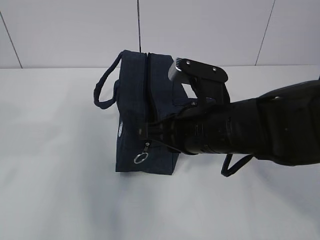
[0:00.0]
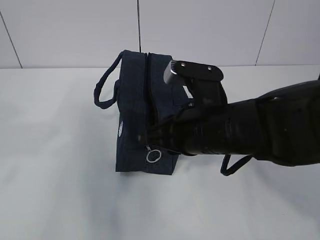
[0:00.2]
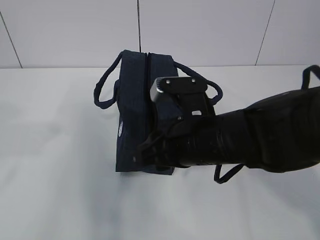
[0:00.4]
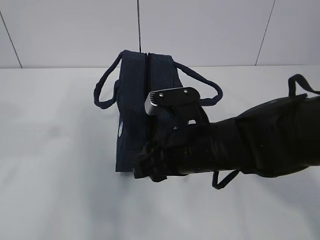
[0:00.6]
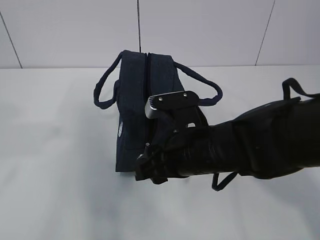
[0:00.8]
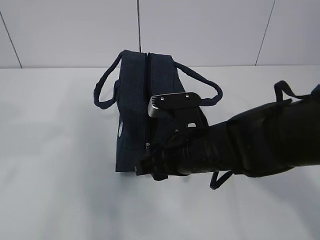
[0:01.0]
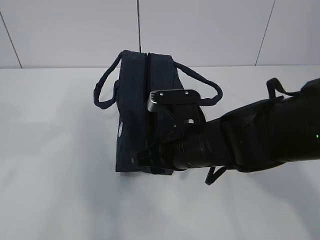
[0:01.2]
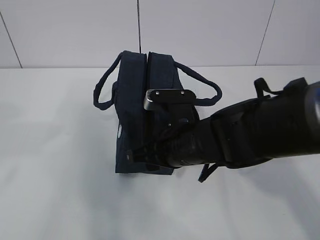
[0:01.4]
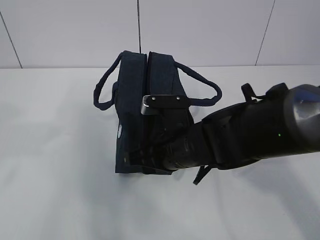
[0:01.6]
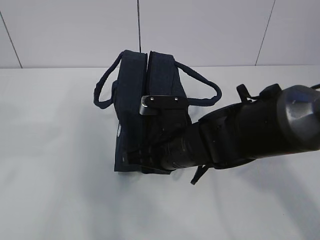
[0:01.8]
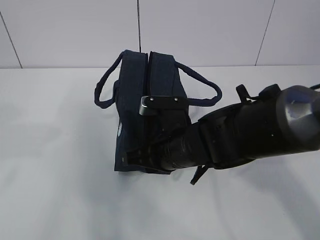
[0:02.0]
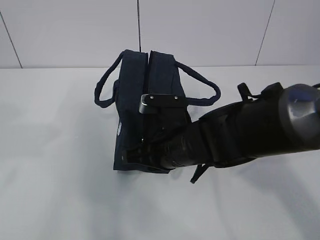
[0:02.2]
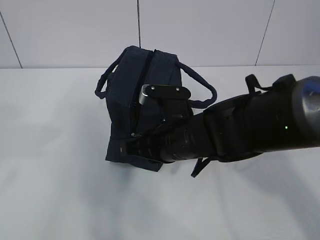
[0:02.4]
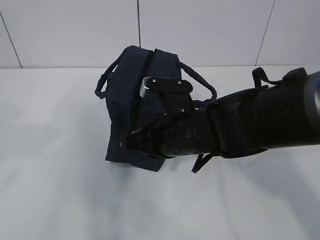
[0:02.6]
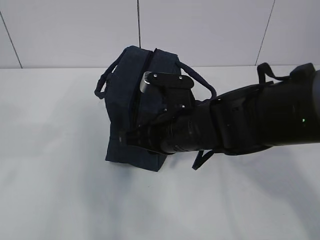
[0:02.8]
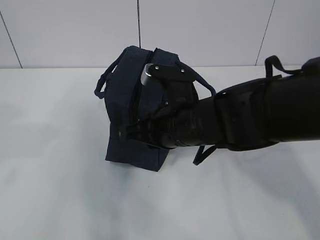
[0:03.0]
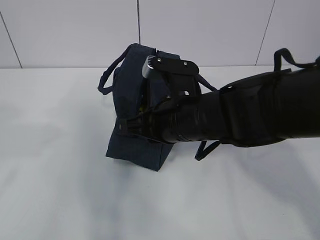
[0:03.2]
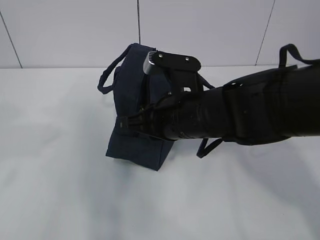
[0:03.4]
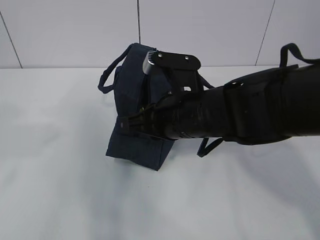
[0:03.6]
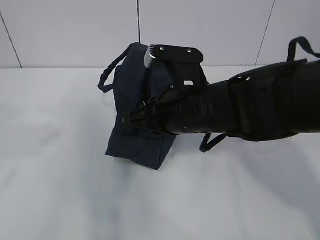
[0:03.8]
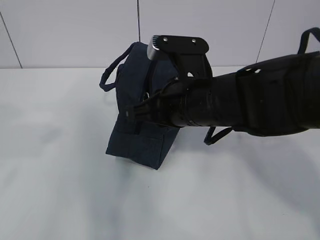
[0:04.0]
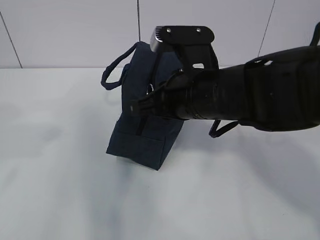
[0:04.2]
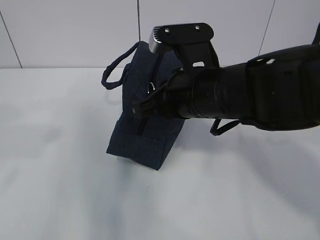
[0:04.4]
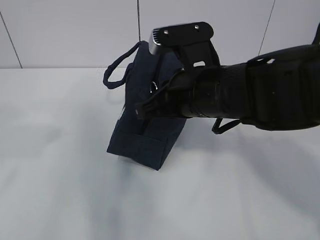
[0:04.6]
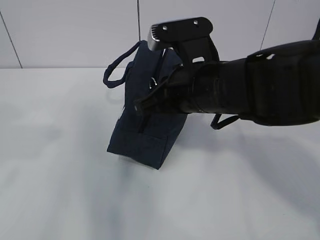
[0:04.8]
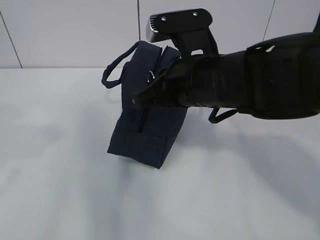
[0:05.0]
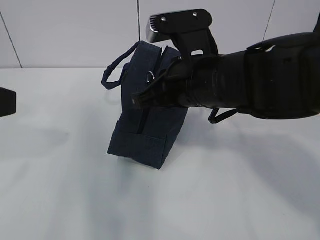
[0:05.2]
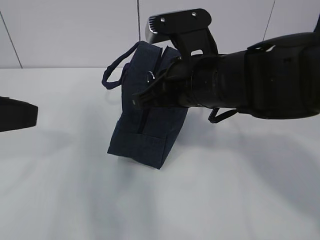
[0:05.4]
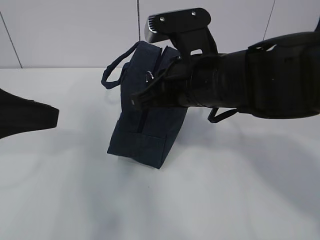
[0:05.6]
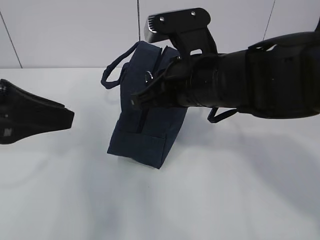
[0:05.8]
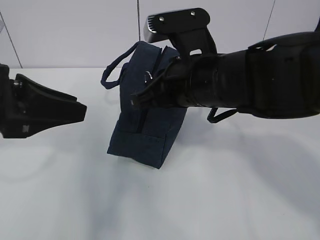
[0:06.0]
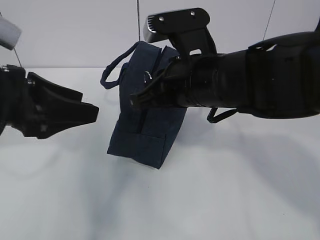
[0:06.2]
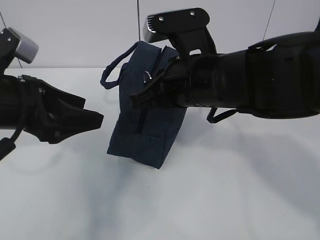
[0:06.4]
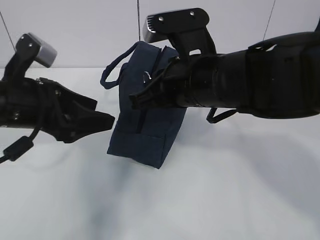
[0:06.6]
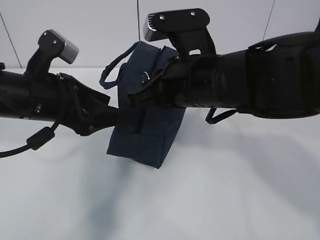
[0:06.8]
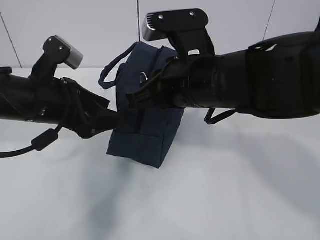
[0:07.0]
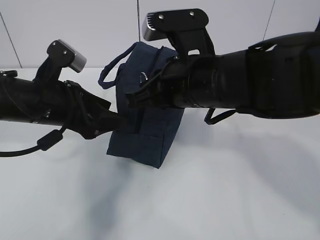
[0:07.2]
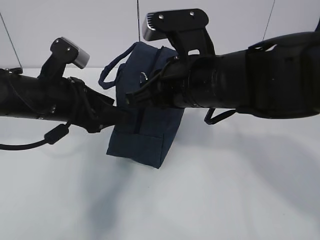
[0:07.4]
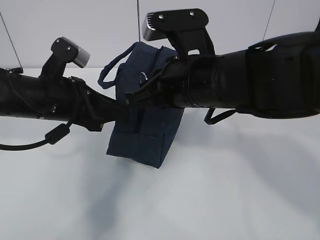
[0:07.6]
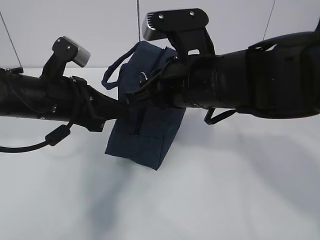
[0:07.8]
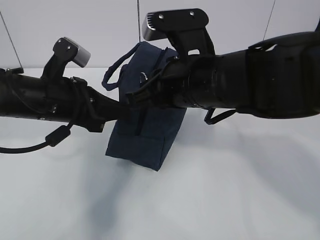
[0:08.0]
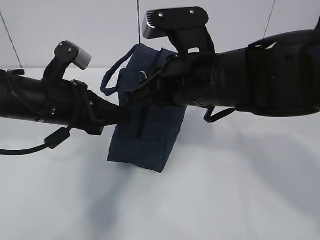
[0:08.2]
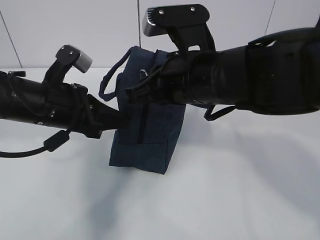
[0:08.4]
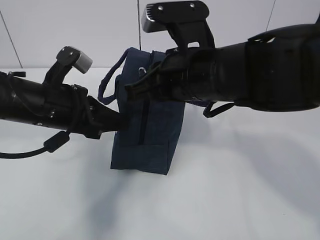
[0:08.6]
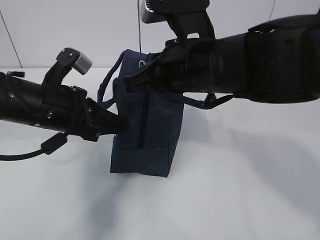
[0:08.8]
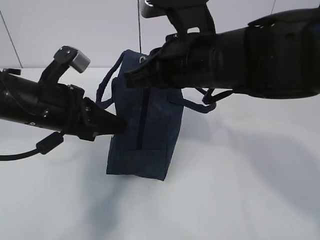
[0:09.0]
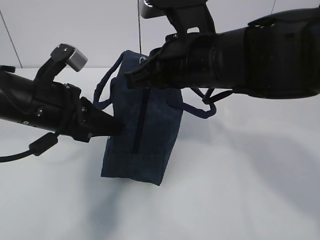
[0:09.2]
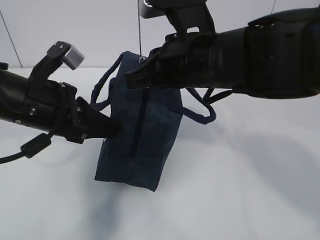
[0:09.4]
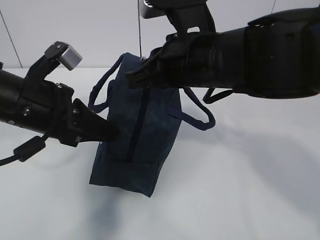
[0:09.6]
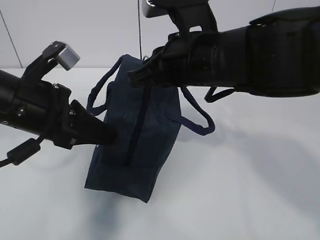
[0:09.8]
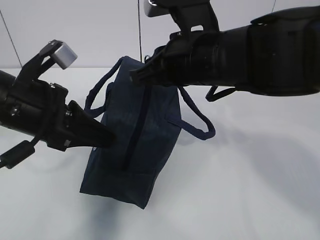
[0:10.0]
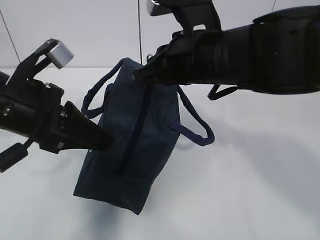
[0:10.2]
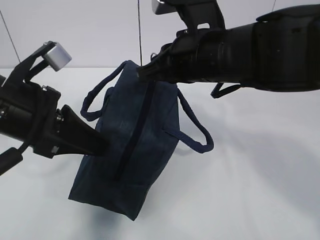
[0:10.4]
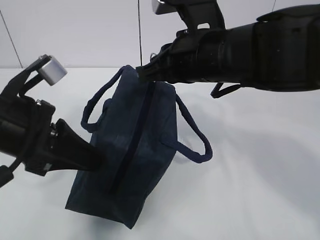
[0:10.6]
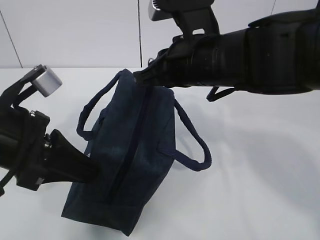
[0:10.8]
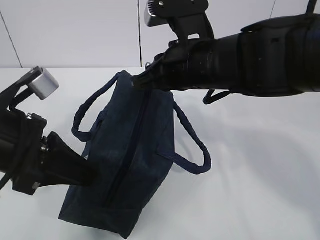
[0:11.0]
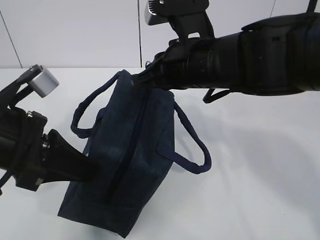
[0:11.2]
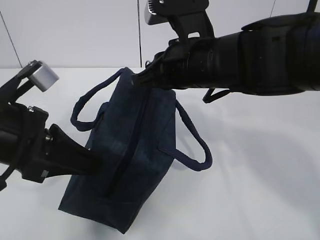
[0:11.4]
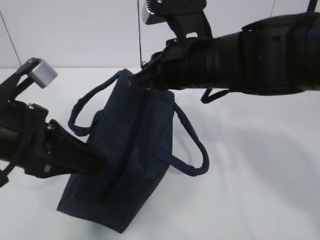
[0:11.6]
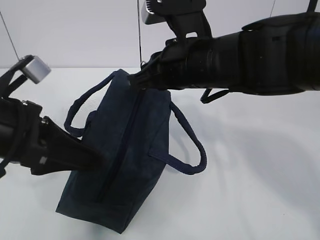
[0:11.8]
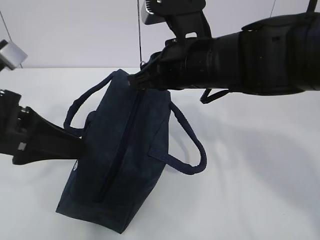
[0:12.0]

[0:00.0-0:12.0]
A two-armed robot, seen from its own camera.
Step, 0:01.4 to 0:06.0: Pull the zipper with your right hand.
Step, 0:06.2 to 0:08.0: Grab the lunch bag with your left hand.
0:00.0 to 0:01.6: The right gripper heads downward, covering some 5 cm, and opens up.
0:01.6 to 0:03.0: The right gripper closes.
0:03.0 to 0:04.4: The right gripper goes approximately 5 cm upward.
0:04.4 to 0:06.0: The left gripper goes roughly 10 cm forward and downward.
0:06.0 to 0:07.6: The left gripper goes some 10 cm forward and downward.
0:07.6 to 0:09.0: The left gripper closes up.
0:09.0 to 0:10.4: The left gripper ends up roughly 5 cm from where it was.
0:10.4 to 0:12.0: The left gripper opens up.

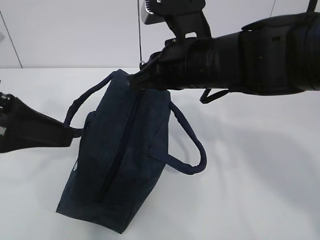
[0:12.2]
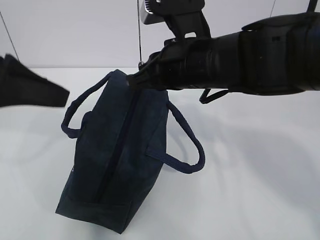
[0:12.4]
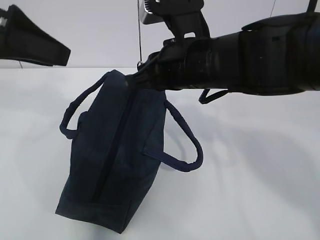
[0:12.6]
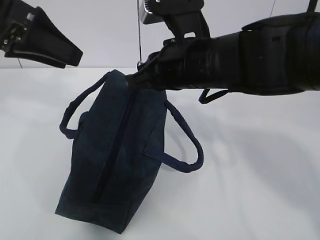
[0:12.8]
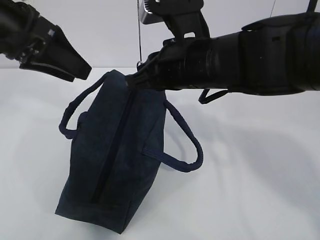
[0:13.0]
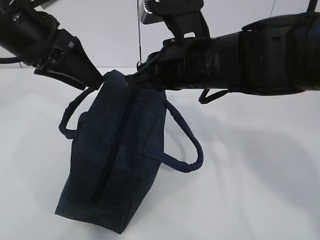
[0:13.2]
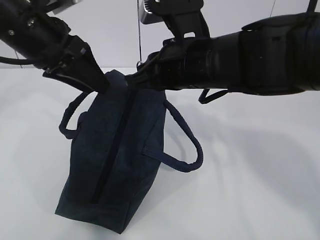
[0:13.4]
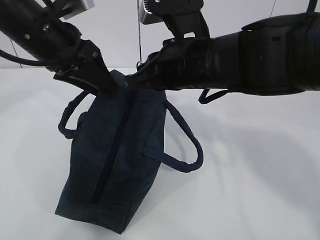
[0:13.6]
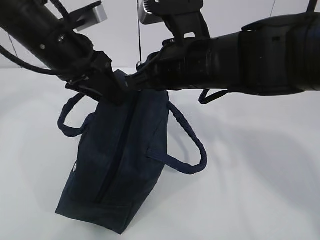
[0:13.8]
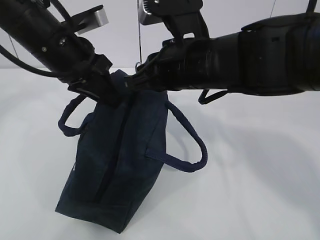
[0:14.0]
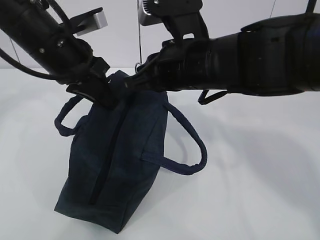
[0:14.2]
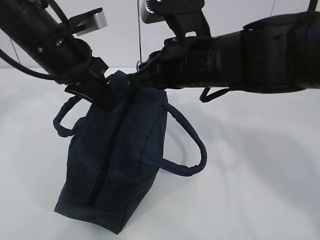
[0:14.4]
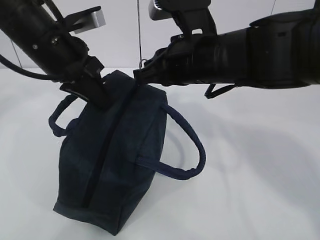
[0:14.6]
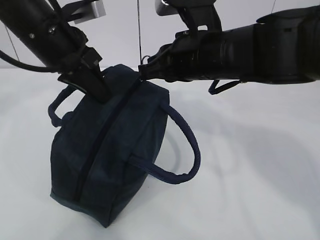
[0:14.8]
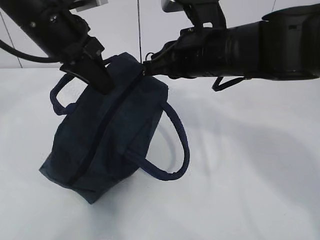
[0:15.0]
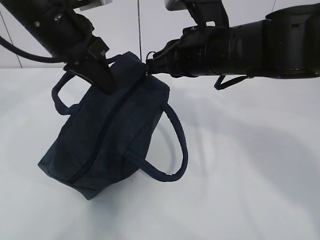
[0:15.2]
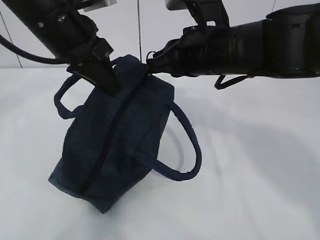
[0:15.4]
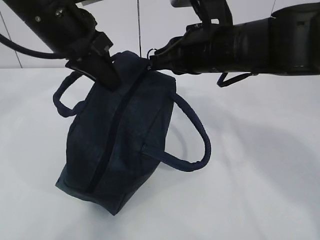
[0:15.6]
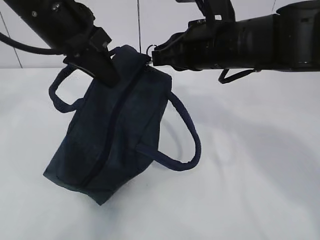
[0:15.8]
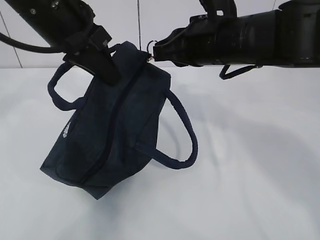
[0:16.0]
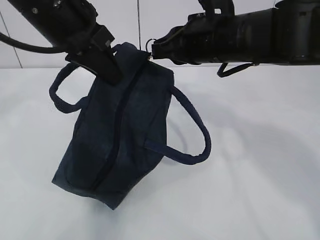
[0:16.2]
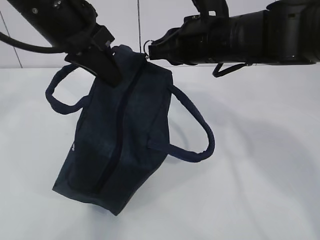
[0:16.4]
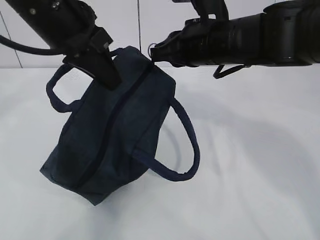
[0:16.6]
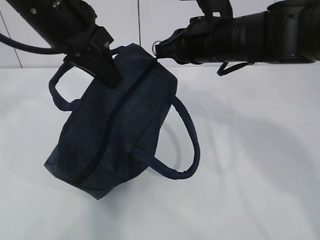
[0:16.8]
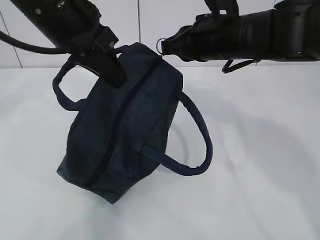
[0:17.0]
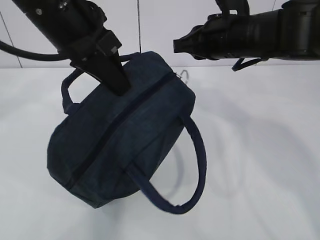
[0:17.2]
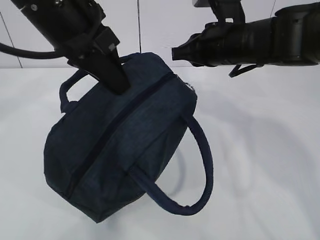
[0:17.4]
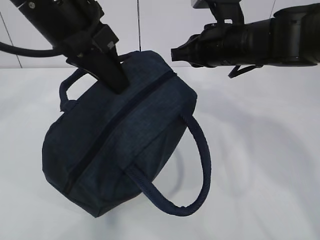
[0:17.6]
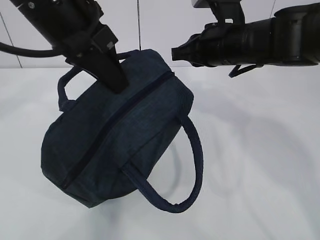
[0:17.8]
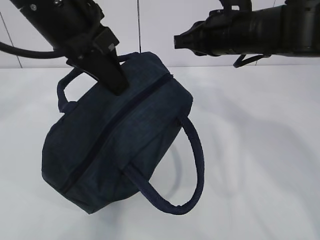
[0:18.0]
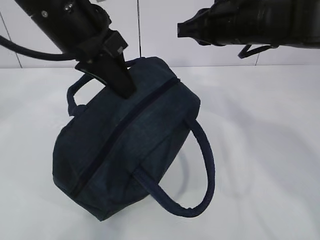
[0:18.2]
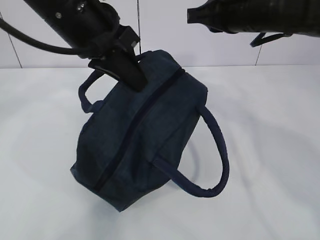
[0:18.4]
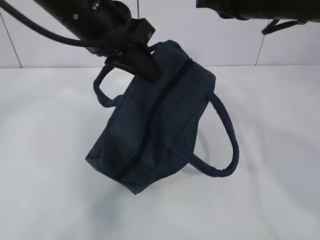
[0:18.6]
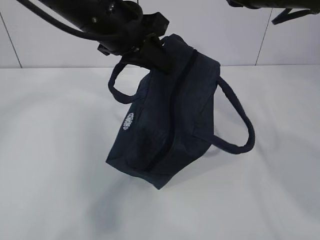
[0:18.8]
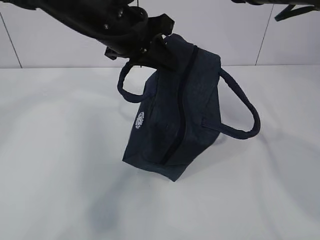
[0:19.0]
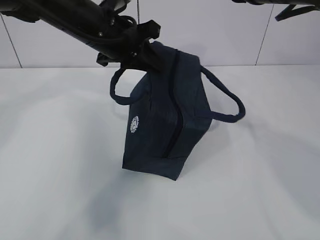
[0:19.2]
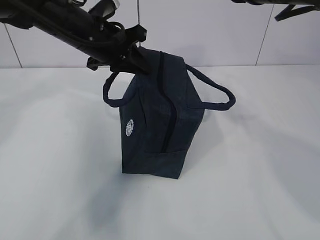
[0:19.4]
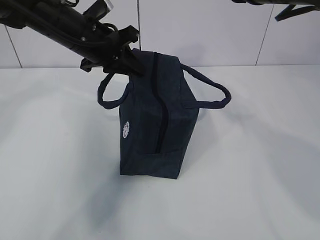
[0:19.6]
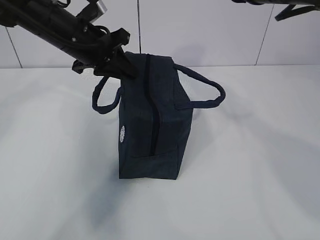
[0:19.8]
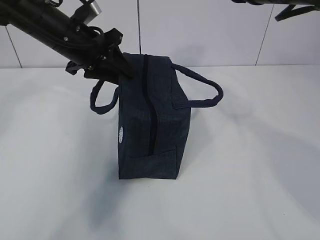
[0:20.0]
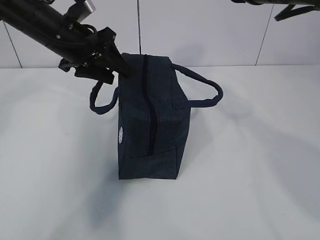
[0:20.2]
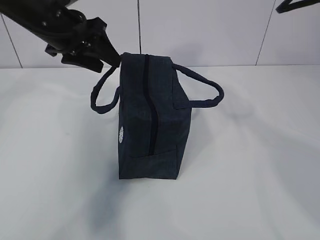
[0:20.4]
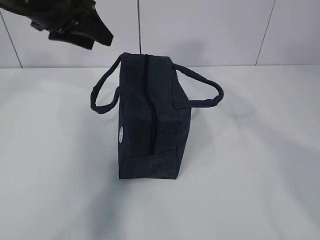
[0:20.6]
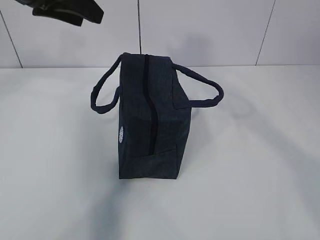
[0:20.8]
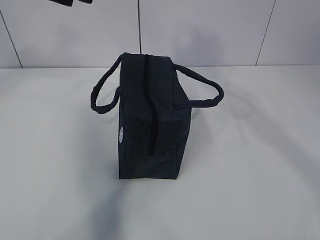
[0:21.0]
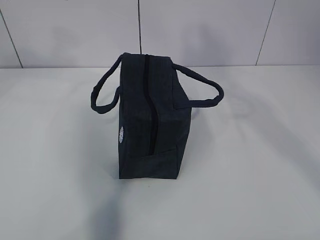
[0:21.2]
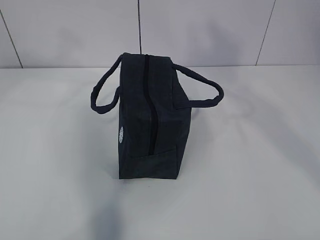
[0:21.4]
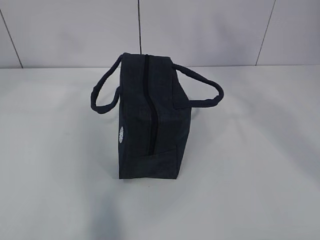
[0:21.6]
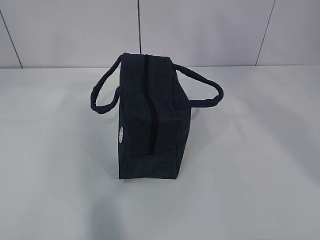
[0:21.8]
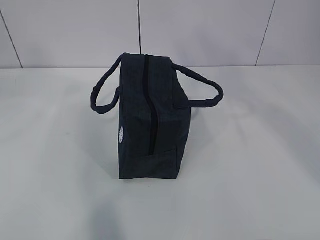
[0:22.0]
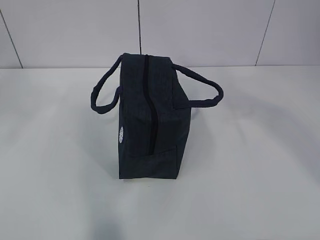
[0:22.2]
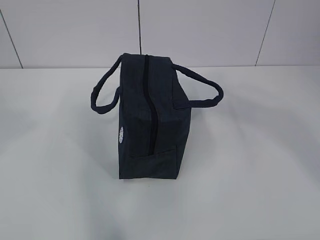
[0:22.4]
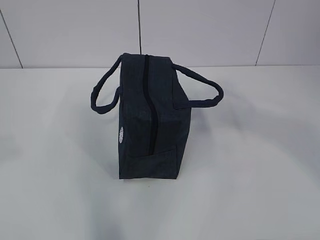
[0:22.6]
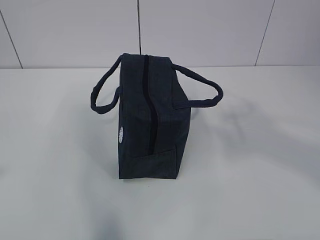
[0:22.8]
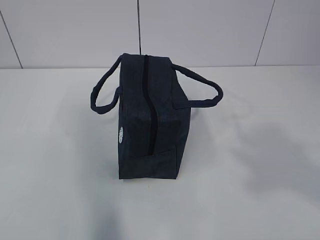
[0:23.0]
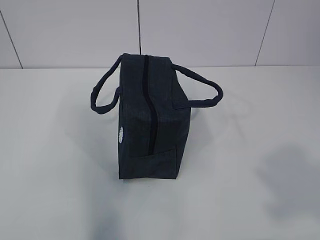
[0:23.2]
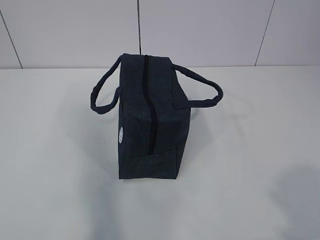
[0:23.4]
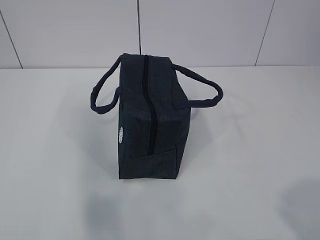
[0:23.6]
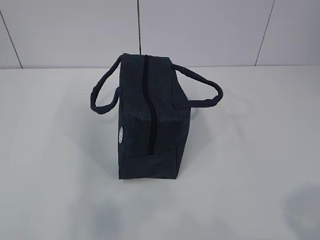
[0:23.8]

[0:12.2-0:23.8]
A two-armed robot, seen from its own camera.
0:12.2 to 0:13.6: The left gripper is displaced forward and to the right by approximately 15 cm.
0:13.6 to 0:15.0: The left gripper closes up.
0:15.0 to 0:16.6: The grippers make only small movements.
0:16.6 to 0:18.0: The grippers move only a little.
0:18.0 to 0:19.4: The left gripper travels forward and downward by about 15 cm. Meanwhile the right gripper travels upward by about 10 cm.
0:19.4 to 0:21.0: The left gripper shifts about 20 cm upward, to the left and backward, and opens its fingers, while the right gripper shifts approximately 15 cm upward and backward, and opens.
0:21.0 to 0:22.4: The right gripper is displaced backward by about 15 cm; the left gripper is displaced backward by some 30 cm, and closes its fingers.
